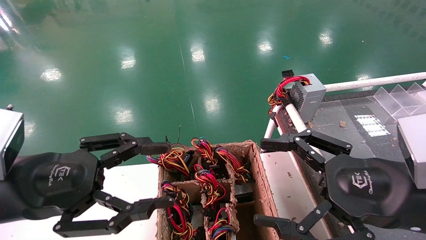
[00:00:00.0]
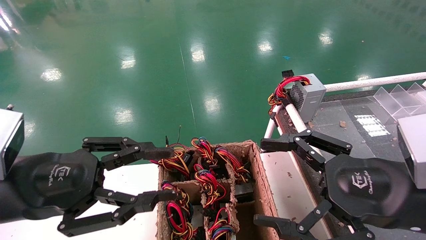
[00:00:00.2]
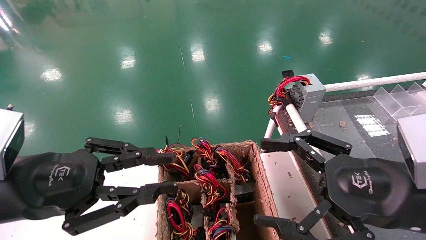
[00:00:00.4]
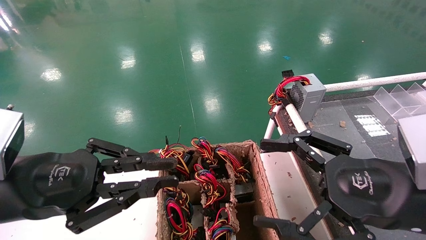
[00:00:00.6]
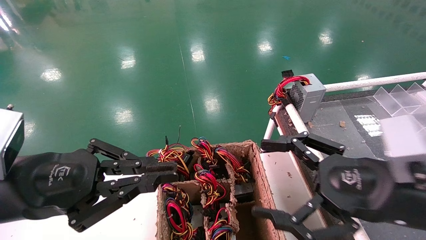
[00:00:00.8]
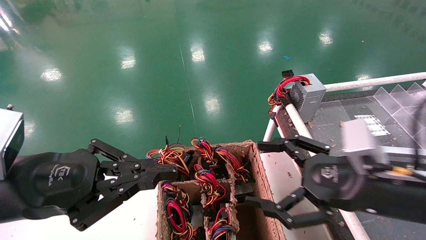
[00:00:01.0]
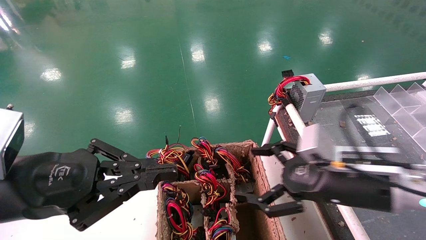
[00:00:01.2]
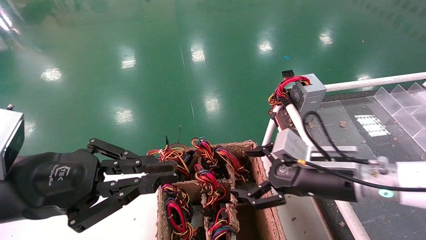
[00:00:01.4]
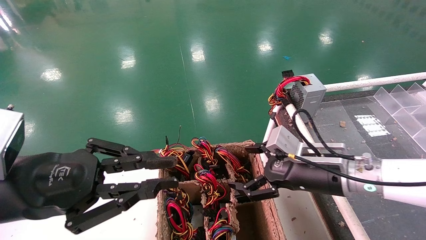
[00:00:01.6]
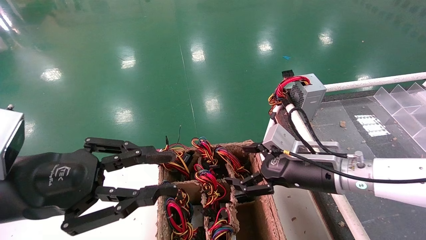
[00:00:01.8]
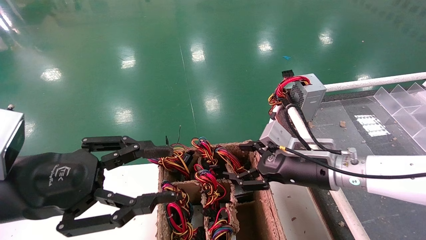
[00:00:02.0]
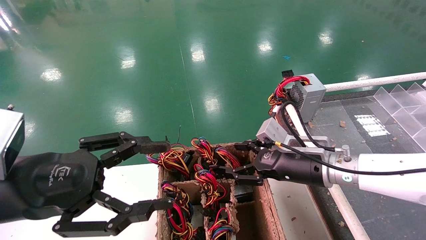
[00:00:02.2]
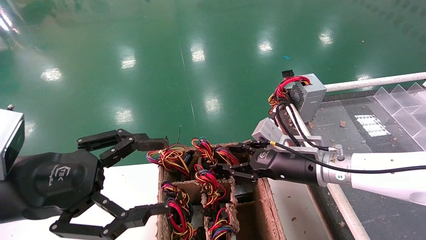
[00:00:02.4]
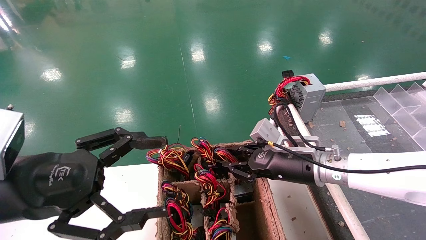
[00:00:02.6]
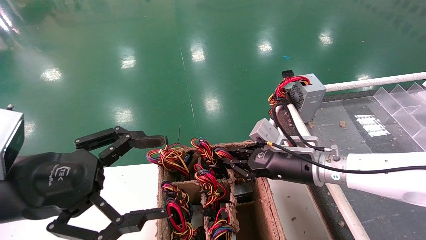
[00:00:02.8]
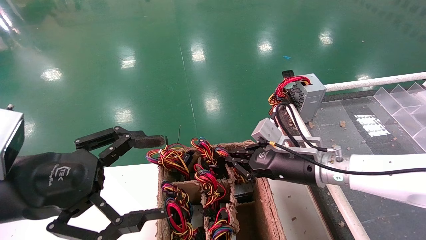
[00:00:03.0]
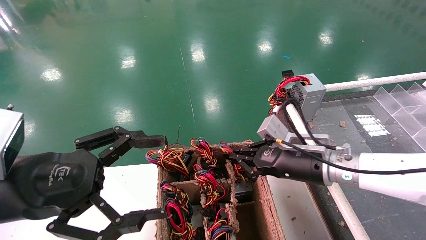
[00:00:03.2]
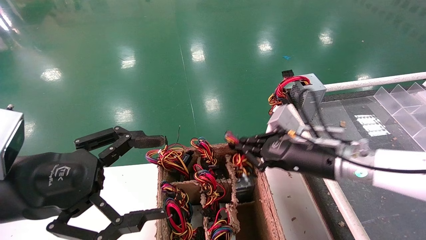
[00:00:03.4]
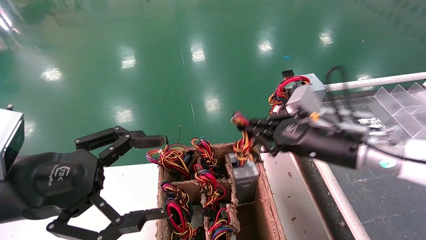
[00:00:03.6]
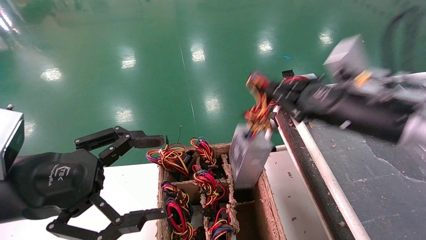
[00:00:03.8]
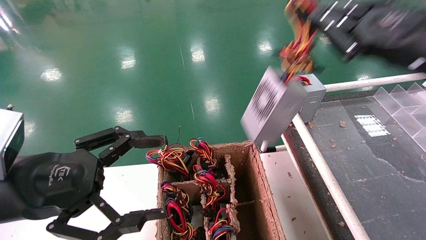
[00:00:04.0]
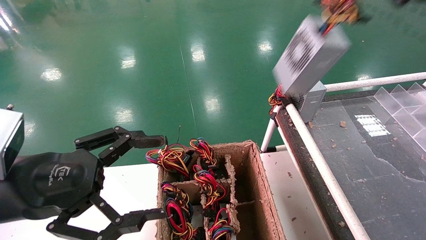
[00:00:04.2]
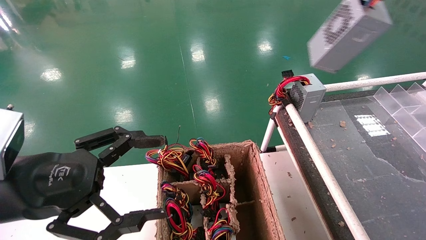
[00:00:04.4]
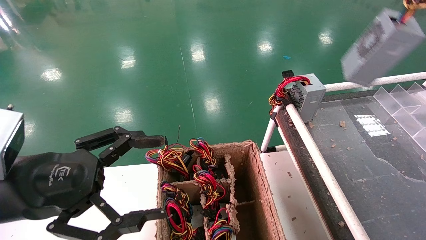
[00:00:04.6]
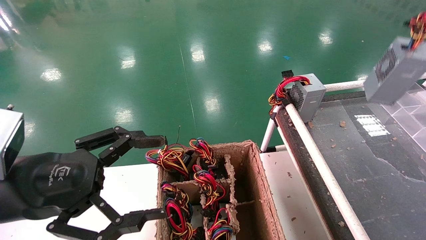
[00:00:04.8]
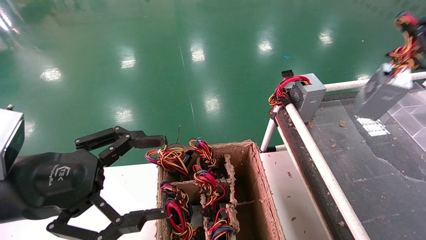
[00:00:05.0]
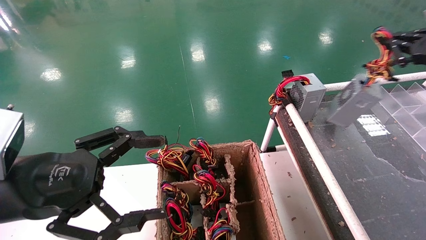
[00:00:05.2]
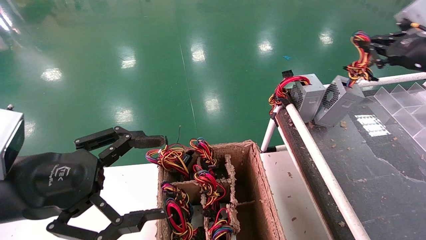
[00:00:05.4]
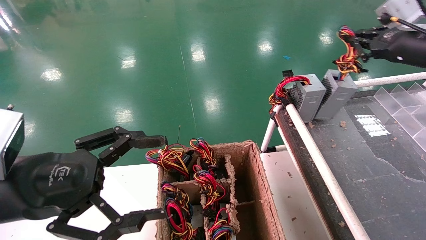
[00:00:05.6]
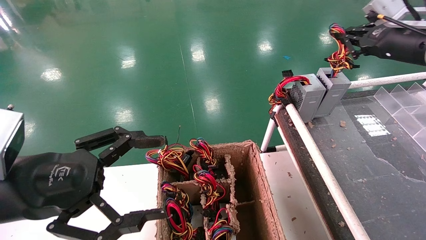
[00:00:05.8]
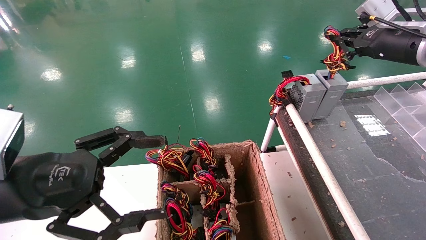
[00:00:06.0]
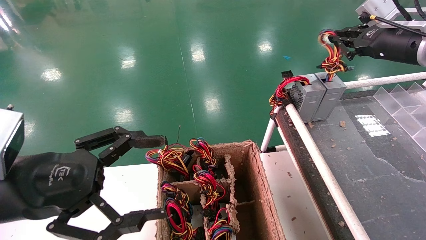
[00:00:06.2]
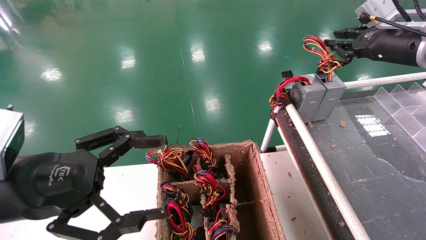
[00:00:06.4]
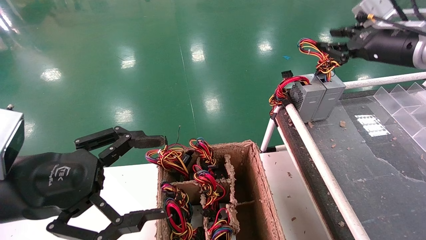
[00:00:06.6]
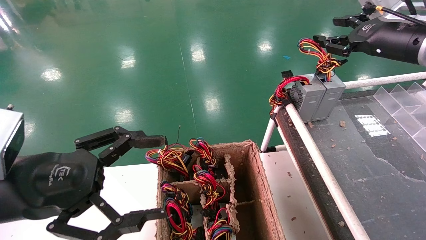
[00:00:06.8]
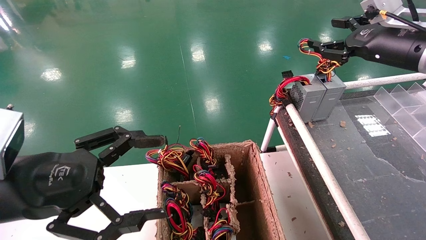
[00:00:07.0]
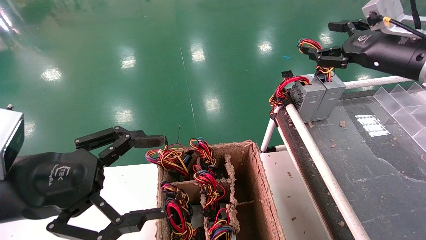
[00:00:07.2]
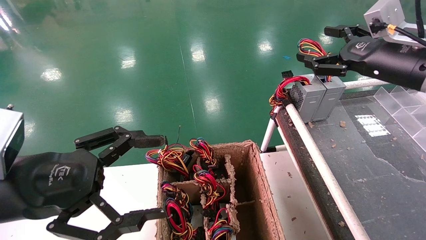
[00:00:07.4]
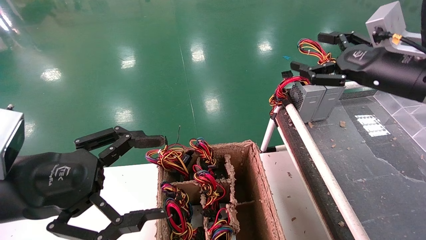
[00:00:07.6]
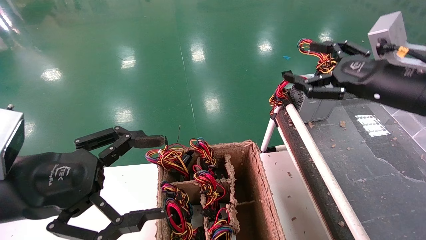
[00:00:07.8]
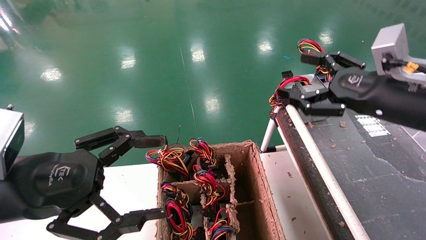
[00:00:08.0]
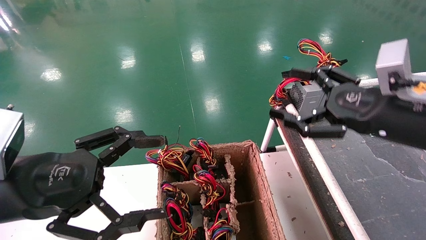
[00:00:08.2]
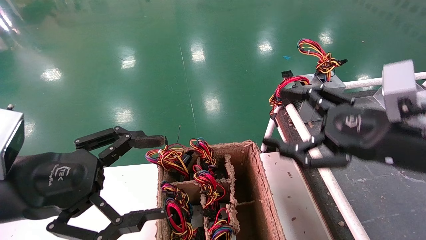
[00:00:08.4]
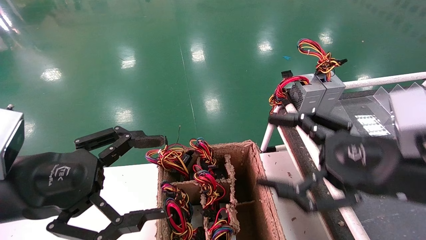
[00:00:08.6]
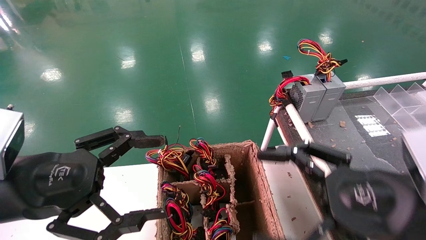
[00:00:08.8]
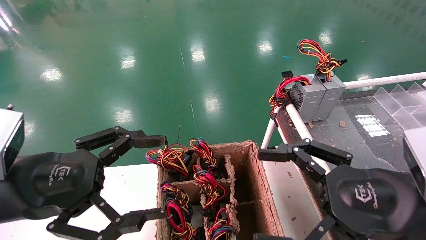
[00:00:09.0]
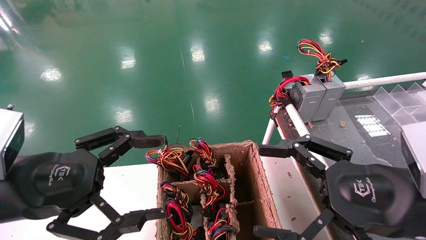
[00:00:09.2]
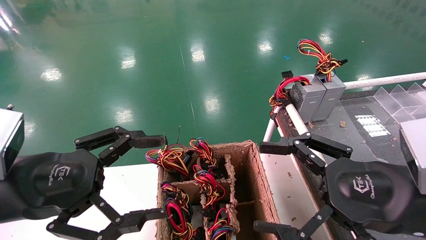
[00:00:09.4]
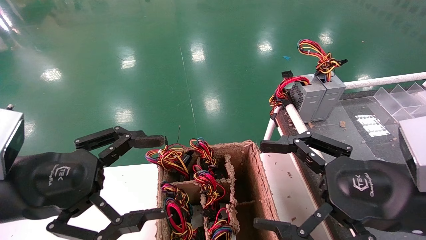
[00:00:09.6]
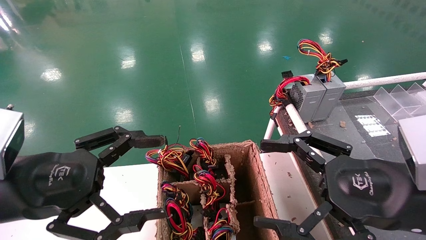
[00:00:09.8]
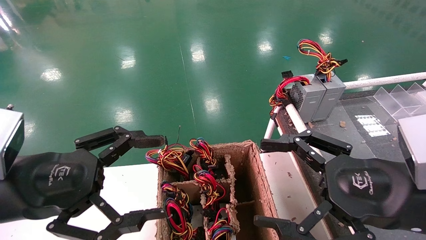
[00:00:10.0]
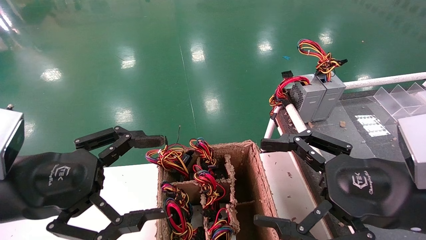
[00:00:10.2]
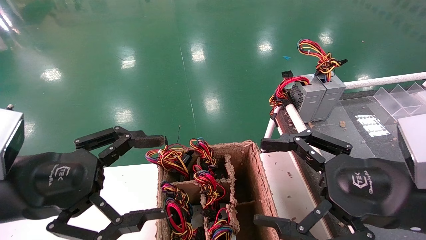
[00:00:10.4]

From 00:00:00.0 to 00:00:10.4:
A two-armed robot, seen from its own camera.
Step, from 00:00:01.0 to 00:00:03.6: Grab and lift the power supply from the large box.
Step, from 00:00:03.8 to 00:00:07.0: Place the power supply on the operating table.
From 00:00:00.0 to 00:00:01.4: The left gripper closes up. Meanwhile the right gripper travels forward by roughly 10 cm.
From 00:00:01.4 to 00:00:03.0: The right gripper travels forward by roughly 5 cm, and closes up. The left gripper opens.
From 00:00:03.0 to 00:00:04.4: The right gripper heads upward, to the right and backward, covering roughly 35 cm.
From 00:00:04.4 to 00:00:06.0: The right gripper travels forward by approximately 15 cm.
From 00:00:06.0 to 00:00:07.4: The right gripper moves some 5 cm, and opens its fingers.
From 00:00:07.4 to 00:00:09.0: The right gripper shifts about 25 cm backward, downward and to the left.
From 00:00:09.0 to 00:00:10.4: The two grippers keep their place.
